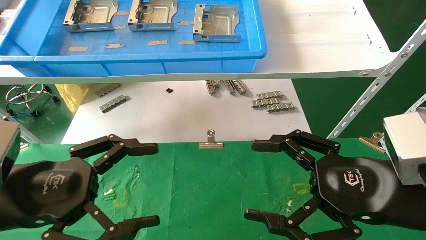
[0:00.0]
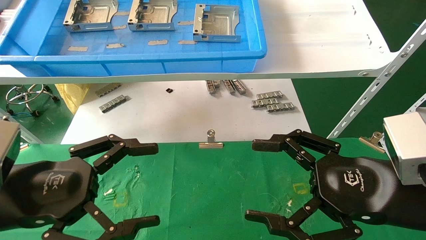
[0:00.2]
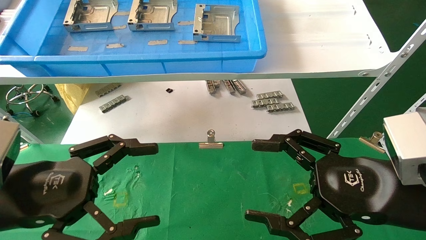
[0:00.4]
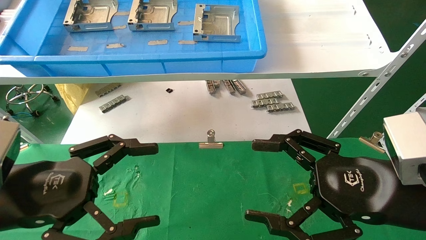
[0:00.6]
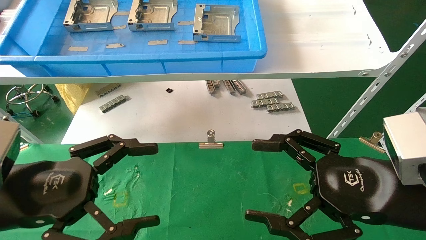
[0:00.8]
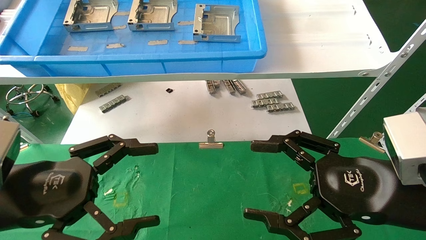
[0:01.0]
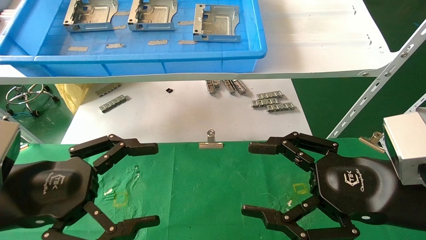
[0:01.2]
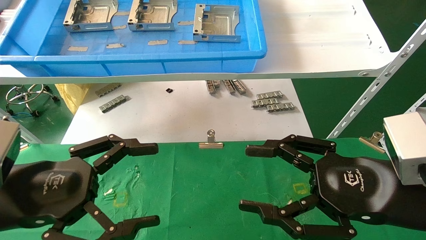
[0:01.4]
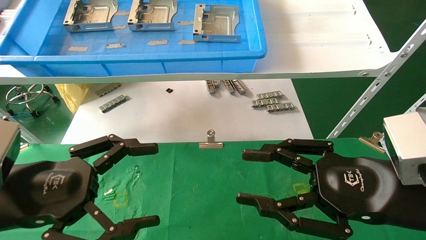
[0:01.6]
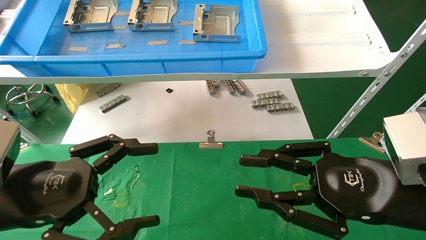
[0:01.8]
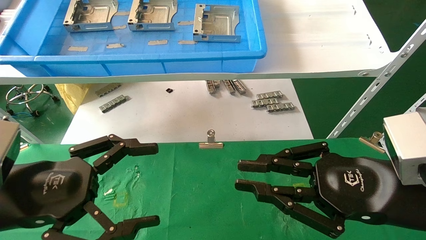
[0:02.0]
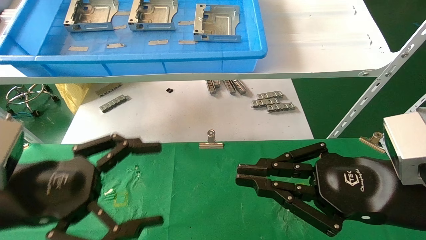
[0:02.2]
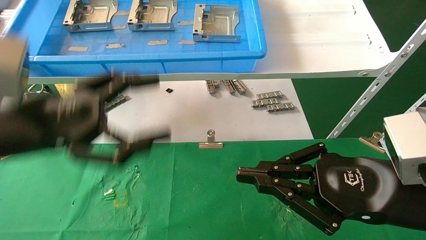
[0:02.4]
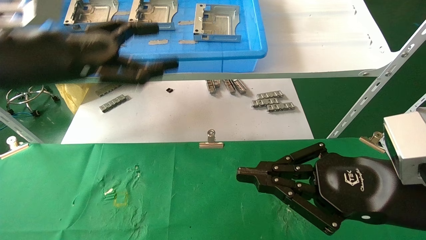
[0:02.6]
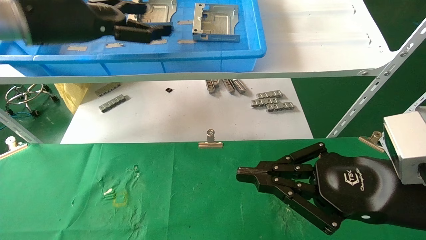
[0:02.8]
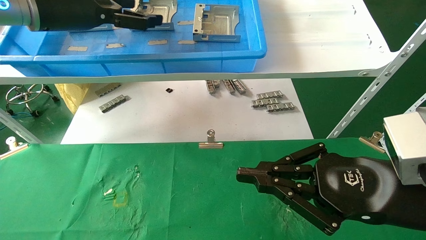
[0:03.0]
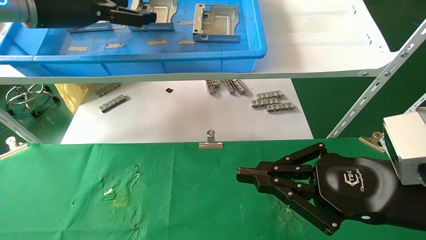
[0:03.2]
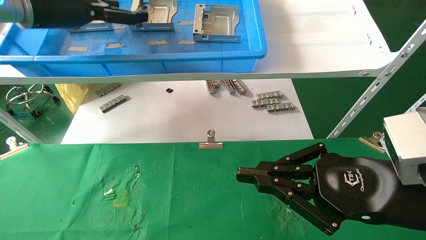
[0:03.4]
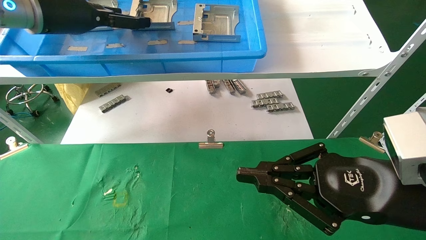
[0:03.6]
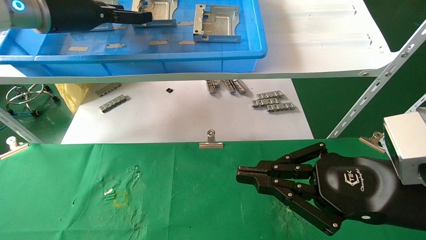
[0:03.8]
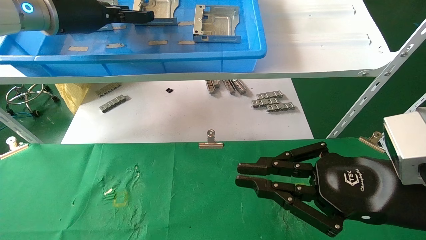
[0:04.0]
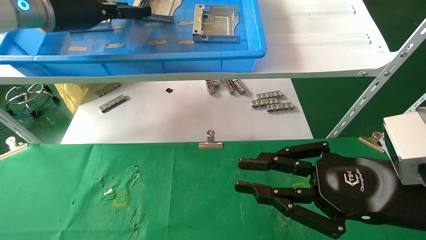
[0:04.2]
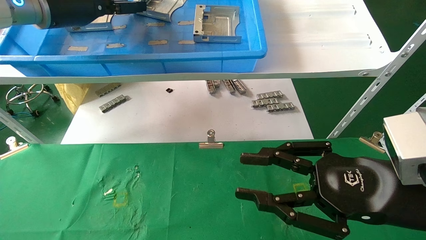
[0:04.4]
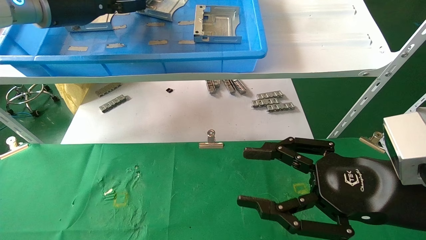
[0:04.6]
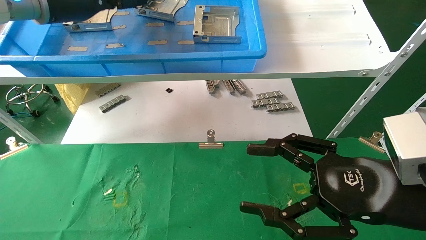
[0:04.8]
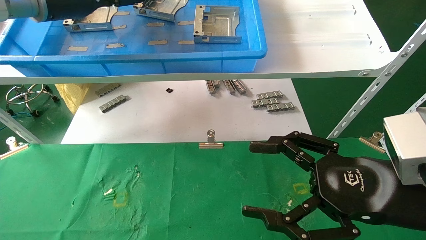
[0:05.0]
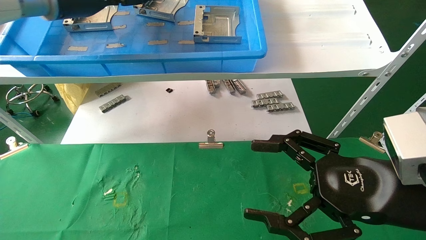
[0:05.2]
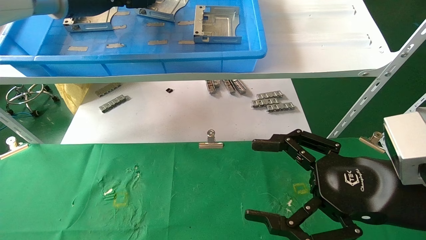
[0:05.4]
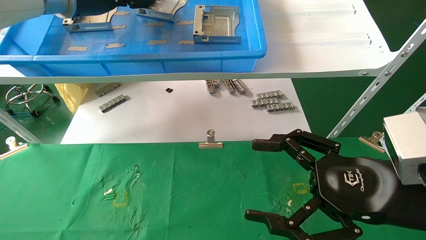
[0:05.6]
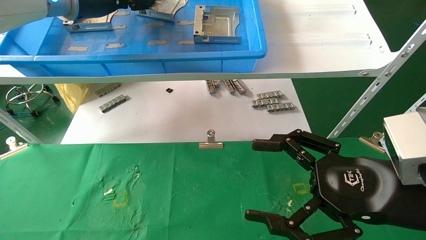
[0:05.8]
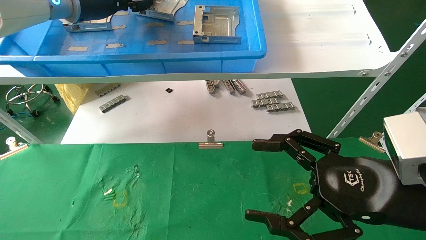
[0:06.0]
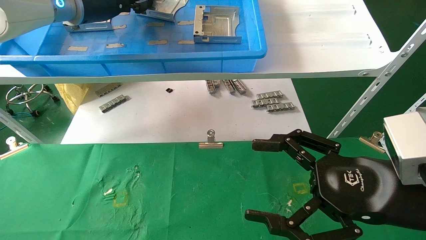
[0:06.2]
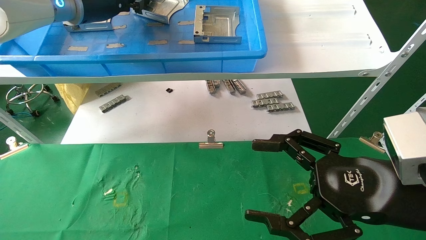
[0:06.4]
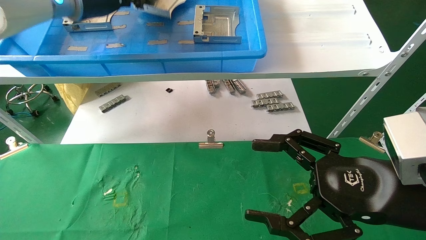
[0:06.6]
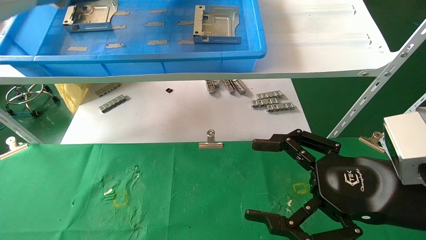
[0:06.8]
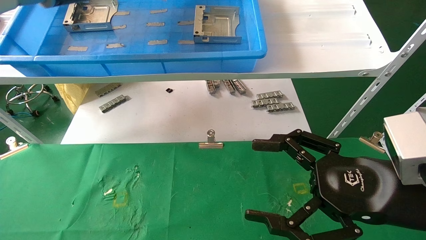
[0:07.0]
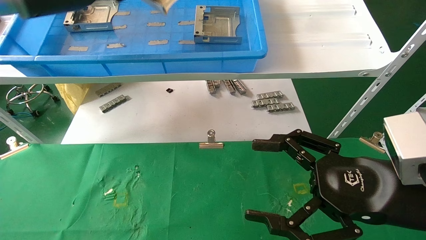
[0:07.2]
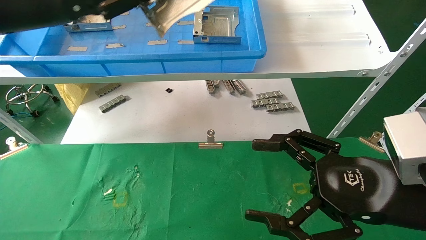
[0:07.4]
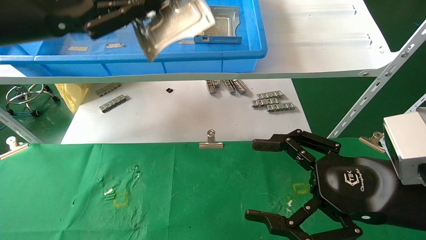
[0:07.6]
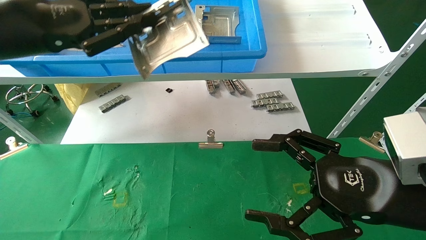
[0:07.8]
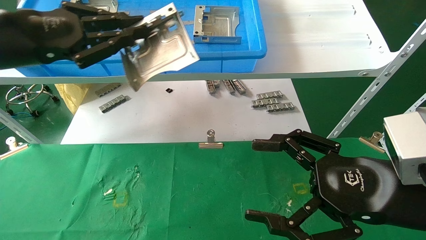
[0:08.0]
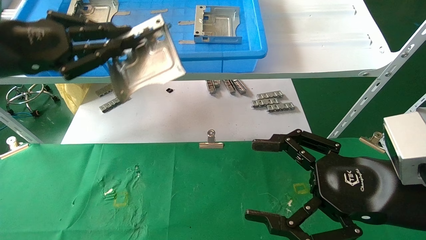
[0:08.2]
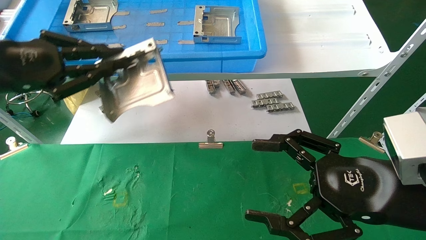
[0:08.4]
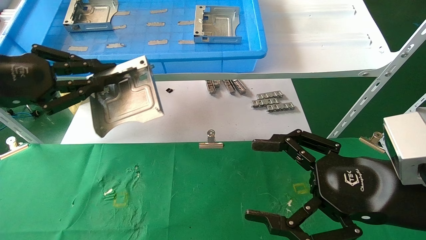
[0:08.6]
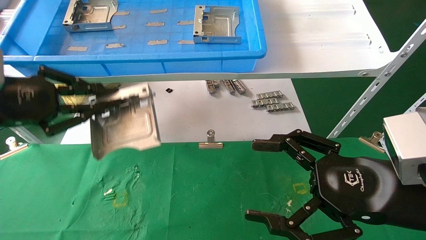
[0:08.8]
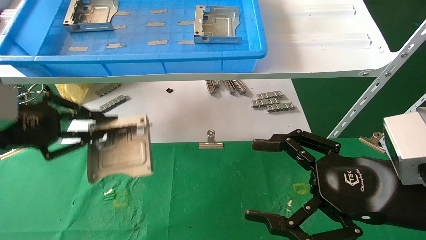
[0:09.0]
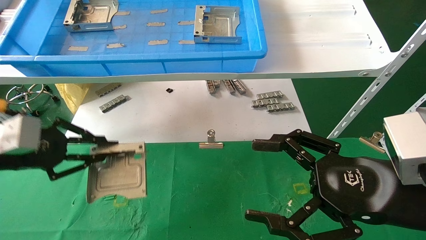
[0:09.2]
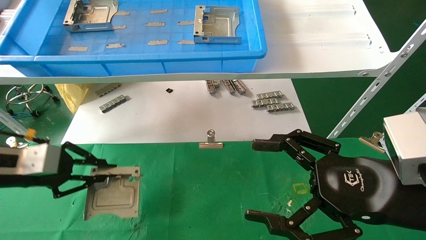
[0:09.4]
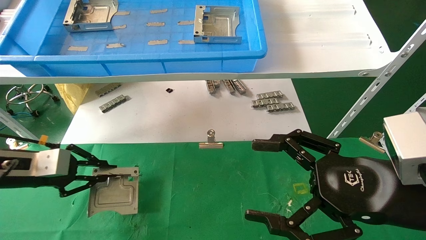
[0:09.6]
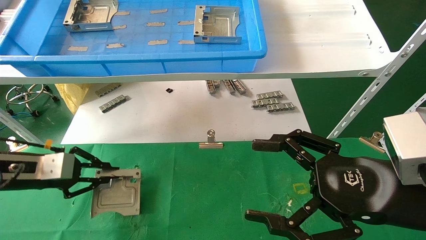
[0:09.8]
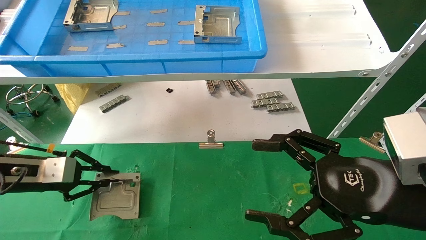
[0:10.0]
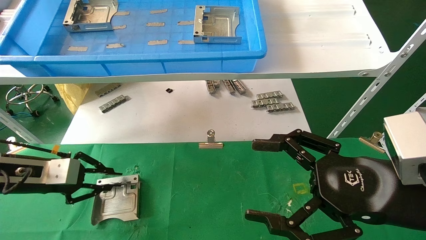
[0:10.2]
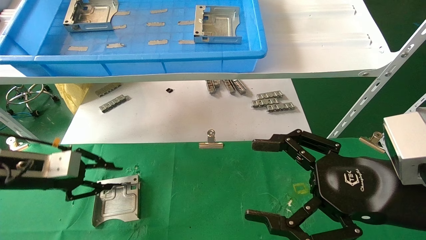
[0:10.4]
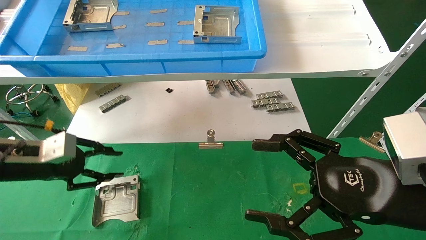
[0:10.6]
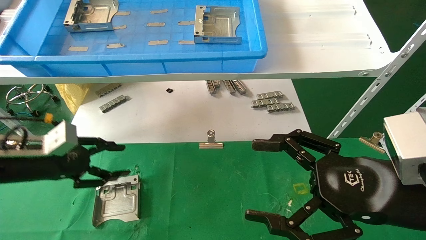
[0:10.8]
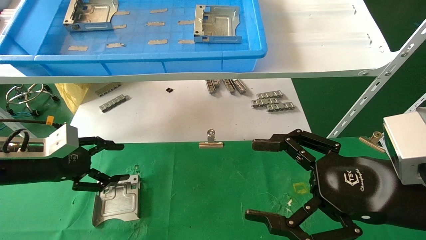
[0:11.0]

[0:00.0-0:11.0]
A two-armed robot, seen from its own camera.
Task of the whole recording: use the mechanical arm to pick up the parts and place them on the table.
Step, 0:02.2 to 0:06.4: Pick up the hard drive bracket from the feeding area.
Step, 0:06.6 to 0:10.6: Place the hard drive bracket into the box.
0:00.0 to 0:01.6: Both grippers stay put.
0:01.6 to 0:03.2: The left gripper travels upward and forward by about 30 cm; the right gripper closes.
0:03.2 to 0:04.8: The right gripper opens its fingers; the left gripper closes.
0:04.8 to 0:06.2: The right gripper opens.
0:06.2 to 0:07.8: The left gripper shifts about 15 cm backward, to the left and downward.
0:07.8 to 0:09.4: The left gripper goes approximately 20 cm downward and to the left.
0:09.4 to 0:11.0: The left gripper opens up.

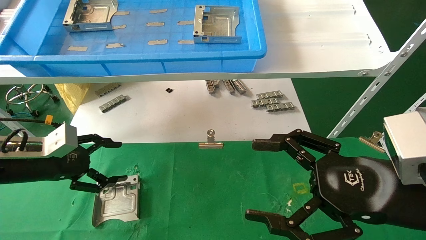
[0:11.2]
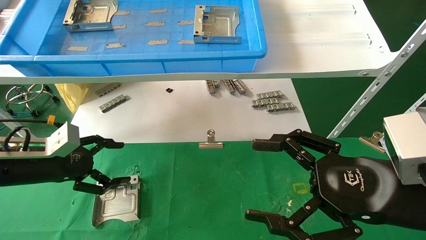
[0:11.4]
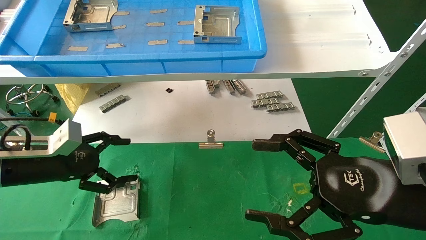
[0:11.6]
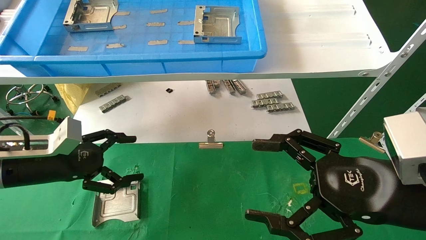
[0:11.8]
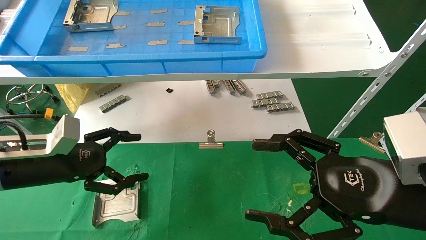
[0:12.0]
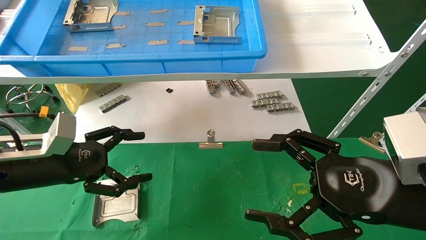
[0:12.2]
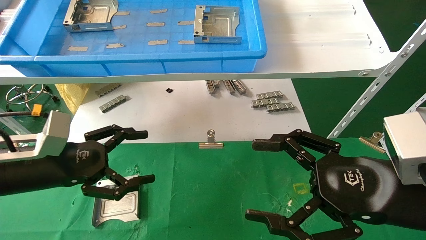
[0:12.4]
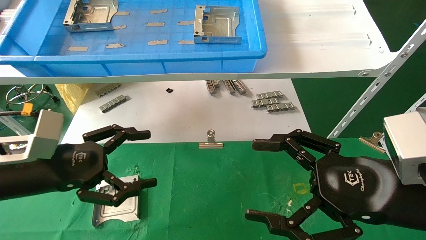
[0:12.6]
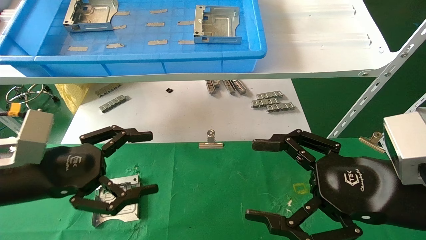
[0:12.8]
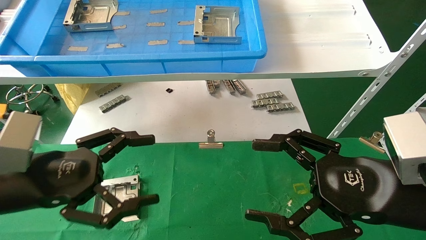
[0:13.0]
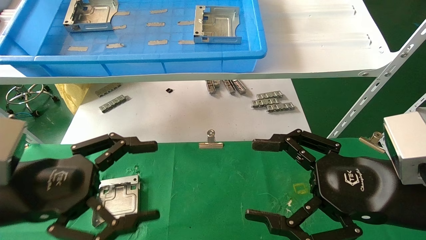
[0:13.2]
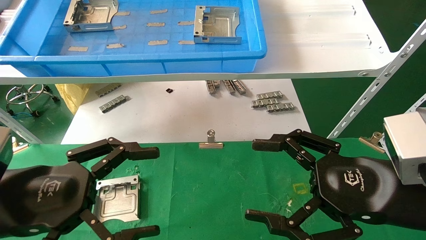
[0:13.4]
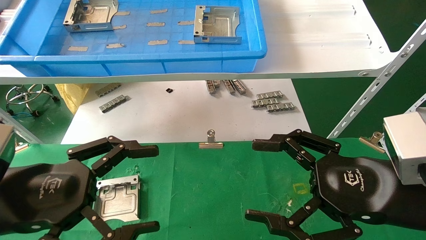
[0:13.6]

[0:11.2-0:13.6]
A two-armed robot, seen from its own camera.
Task of the whole recording: use the mechanical arm to pick up the parts and place them on the table.
0:11.2 to 0:12.4: The left gripper is displaced to the right and backward by about 10 cm.
0:12.4 to 0:13.6: The left gripper shifts about 10 cm backward.
